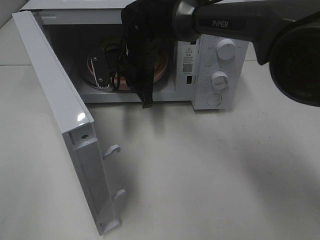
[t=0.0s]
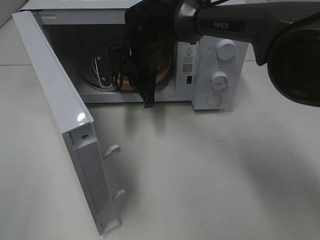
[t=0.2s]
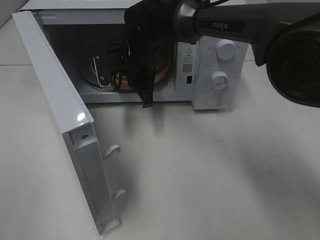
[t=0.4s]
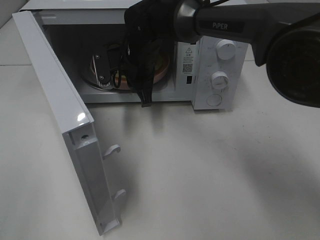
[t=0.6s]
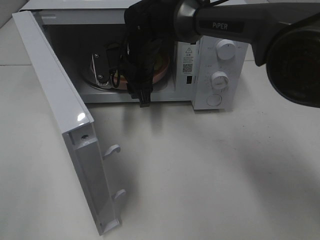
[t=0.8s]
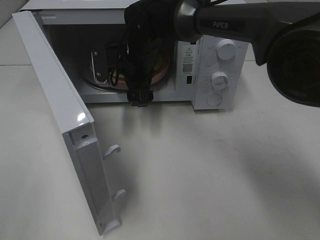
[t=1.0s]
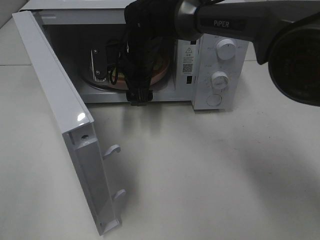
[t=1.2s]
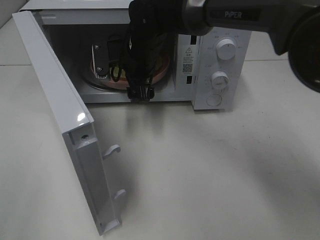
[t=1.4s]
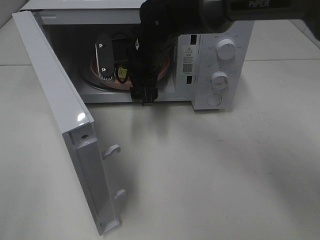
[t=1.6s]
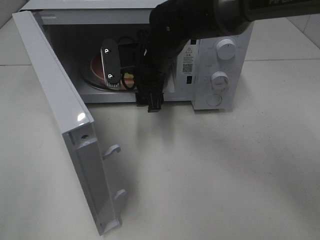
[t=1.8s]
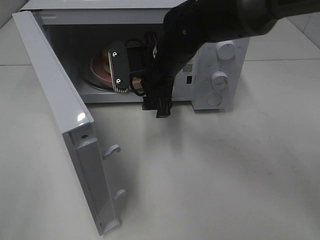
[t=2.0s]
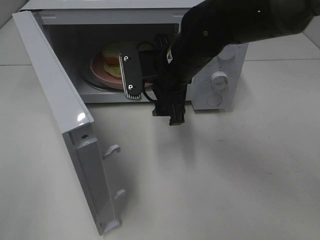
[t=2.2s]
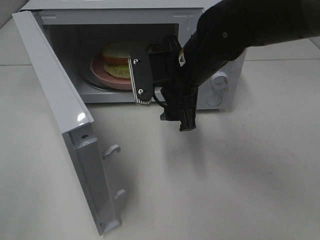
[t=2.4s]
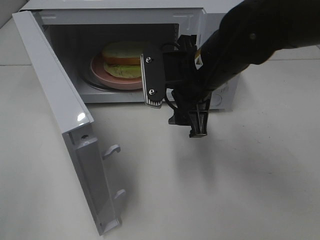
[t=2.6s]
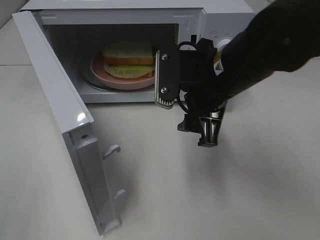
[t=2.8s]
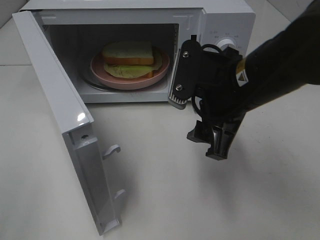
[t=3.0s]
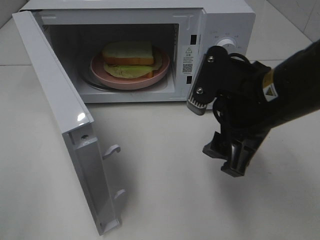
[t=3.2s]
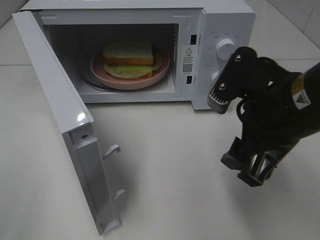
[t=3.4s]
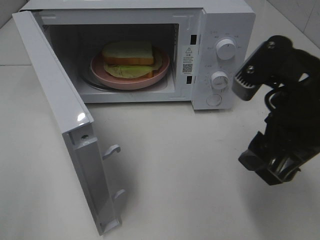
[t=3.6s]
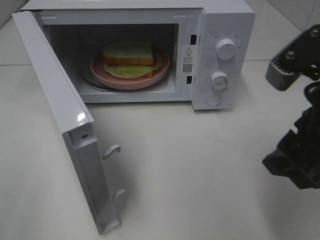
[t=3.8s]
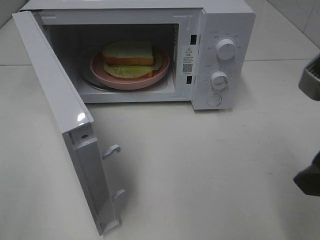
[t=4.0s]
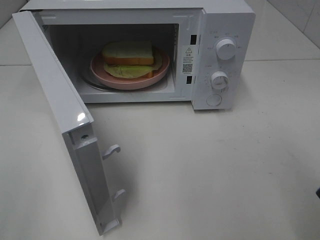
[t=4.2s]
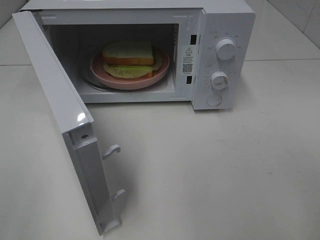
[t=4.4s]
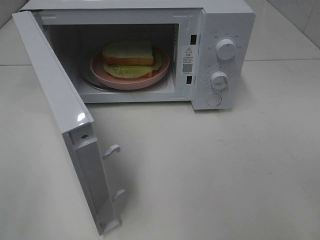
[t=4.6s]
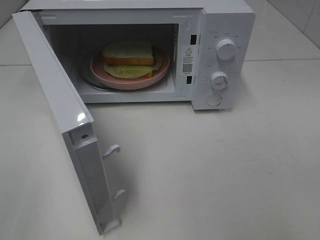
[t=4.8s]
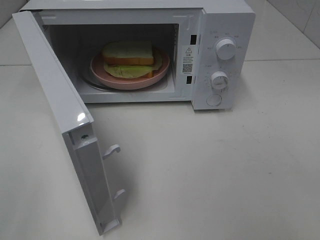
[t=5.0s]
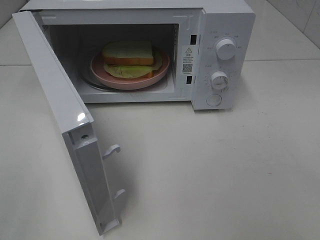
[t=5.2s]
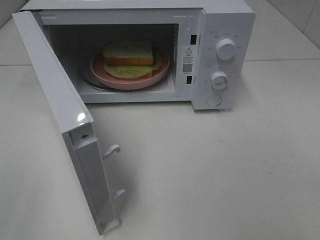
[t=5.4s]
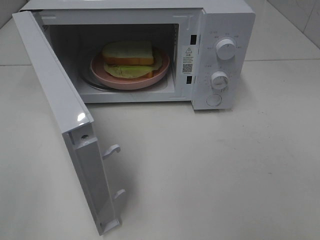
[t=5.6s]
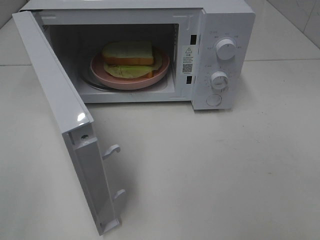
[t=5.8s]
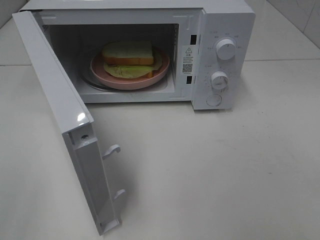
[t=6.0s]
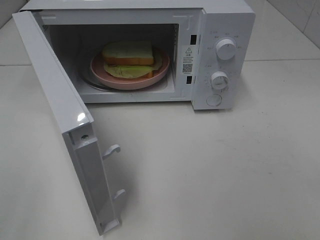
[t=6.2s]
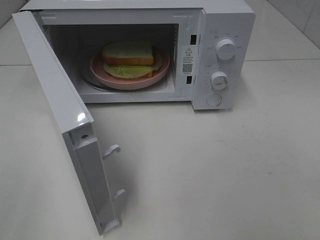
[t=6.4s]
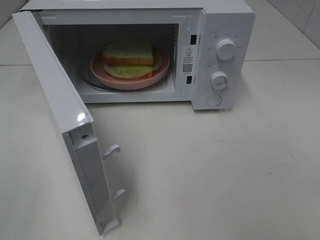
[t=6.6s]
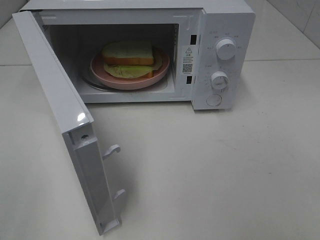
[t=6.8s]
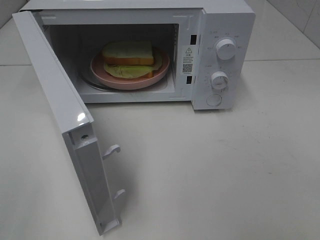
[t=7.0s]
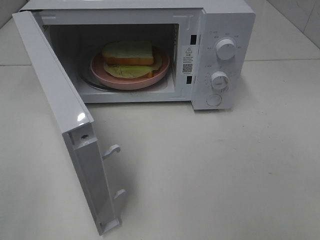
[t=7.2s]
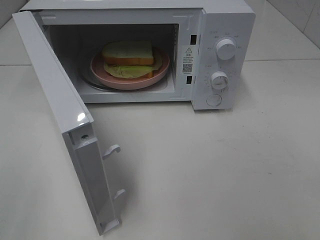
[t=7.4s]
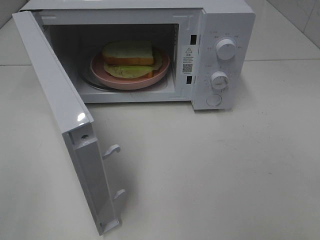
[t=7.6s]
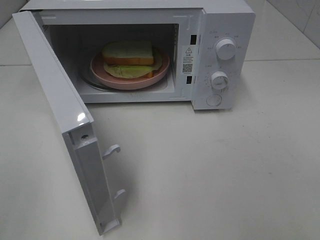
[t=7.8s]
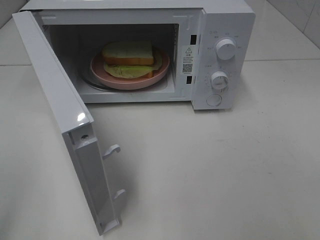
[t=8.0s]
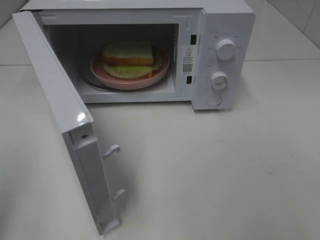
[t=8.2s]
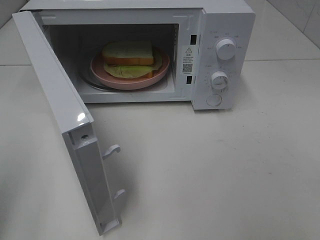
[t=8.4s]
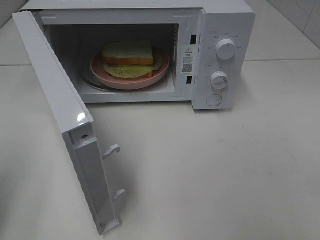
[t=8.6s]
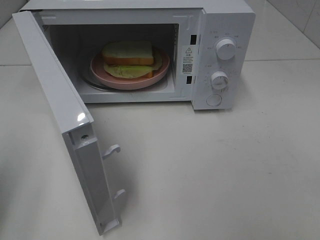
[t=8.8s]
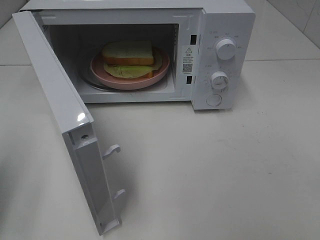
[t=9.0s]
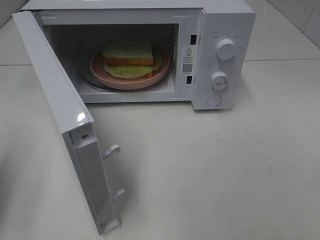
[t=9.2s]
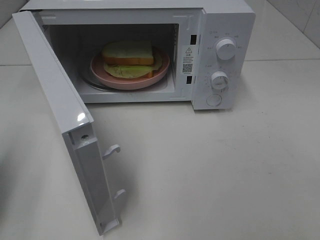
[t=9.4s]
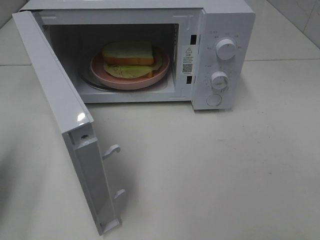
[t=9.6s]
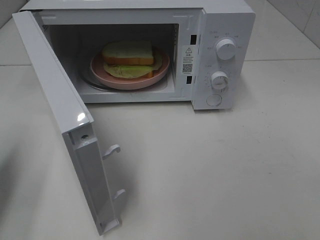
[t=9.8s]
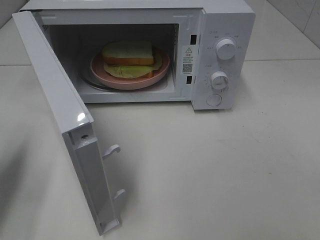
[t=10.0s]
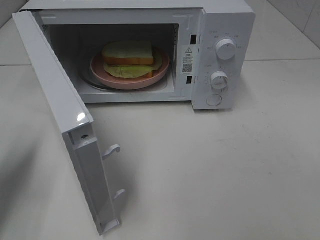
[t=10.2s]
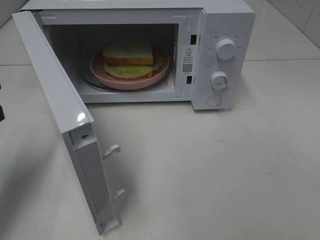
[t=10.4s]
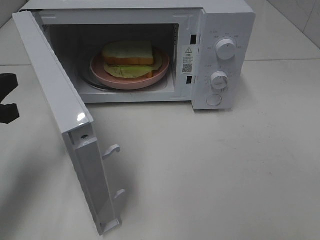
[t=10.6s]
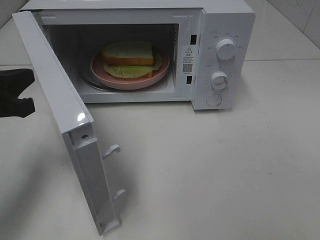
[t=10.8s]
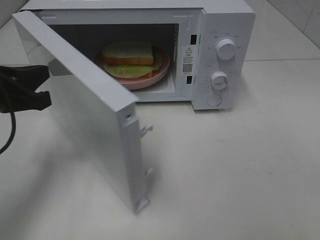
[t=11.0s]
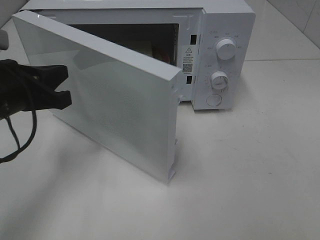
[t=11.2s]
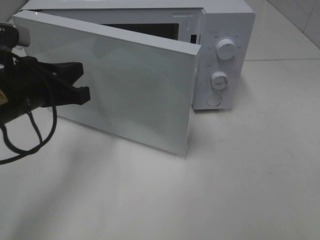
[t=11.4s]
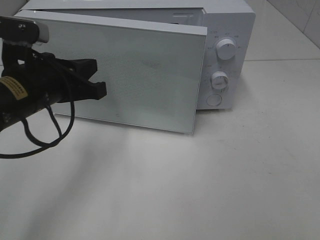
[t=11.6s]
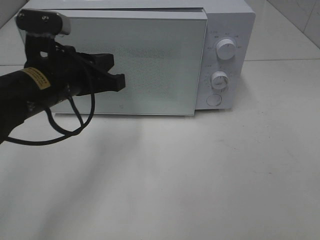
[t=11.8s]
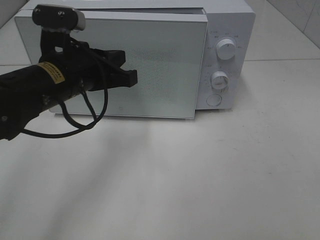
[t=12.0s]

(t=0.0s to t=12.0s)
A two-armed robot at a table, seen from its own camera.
Task of the whole recording: Heat Sandwich.
Step, t=0.0s - t=2.2s: Right hand: place the plate in the microwave.
t=0.0s - t=1.6s: The right gripper opens.
t=1.6s - t=3.0s: The right gripper shifts some 20 cm backward and to the right.
t=3.0s - t=4.4s: The right gripper heads backward, to the right and upward, covering some 20 cm.
t=6.0s - t=7.6s: Neither gripper changes place.
t=7.6s - t=9.0s: The left gripper shifts some 15 cm forward, and closes.
t=9.0s - t=10.4s: The left gripper travels forward by about 10 cm.
t=10.4s - t=12.0s: The left gripper moves to the right and forward, roughly 20 cm.

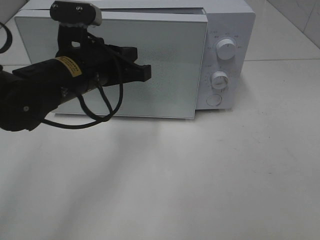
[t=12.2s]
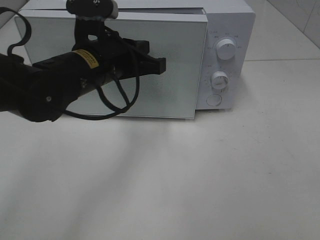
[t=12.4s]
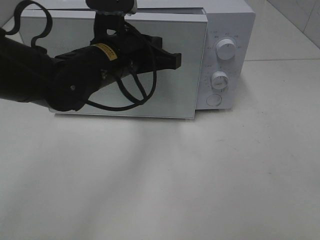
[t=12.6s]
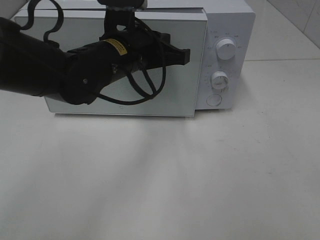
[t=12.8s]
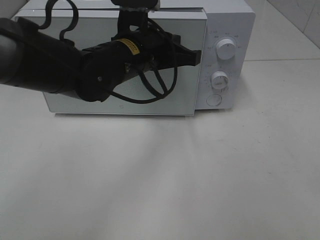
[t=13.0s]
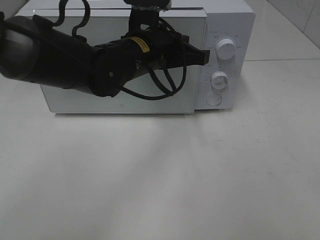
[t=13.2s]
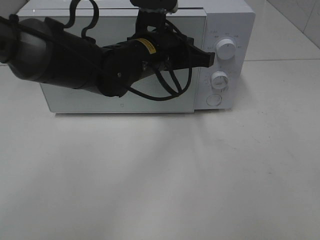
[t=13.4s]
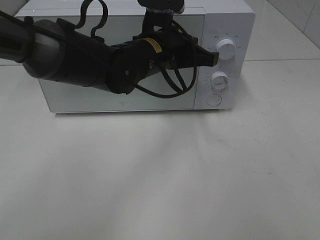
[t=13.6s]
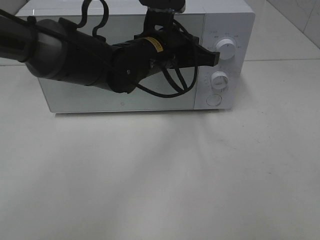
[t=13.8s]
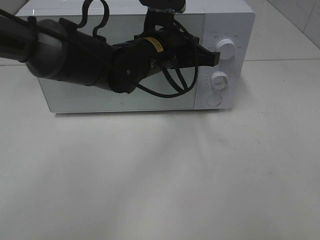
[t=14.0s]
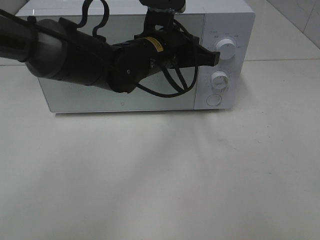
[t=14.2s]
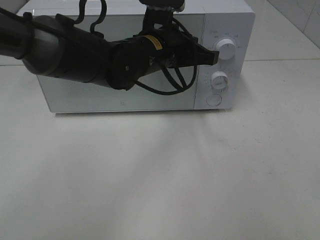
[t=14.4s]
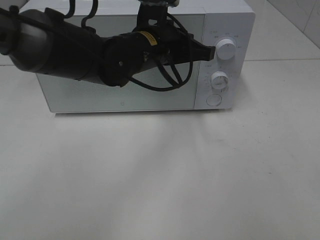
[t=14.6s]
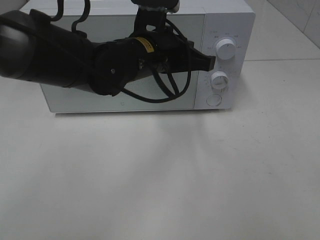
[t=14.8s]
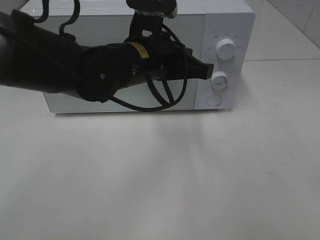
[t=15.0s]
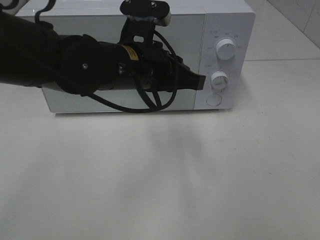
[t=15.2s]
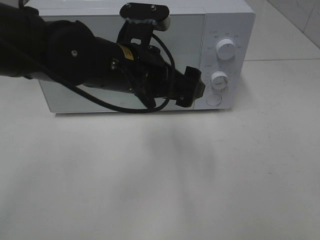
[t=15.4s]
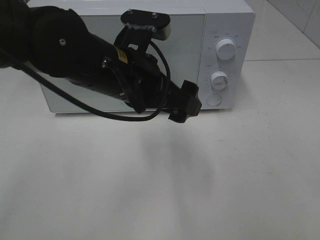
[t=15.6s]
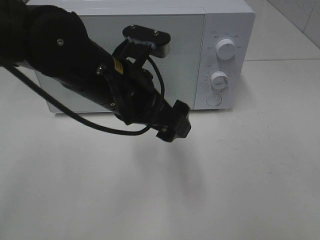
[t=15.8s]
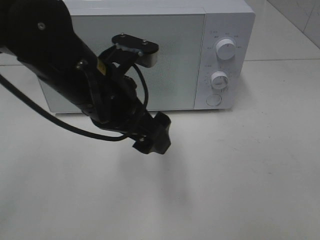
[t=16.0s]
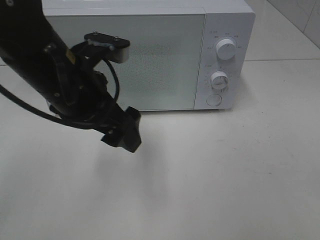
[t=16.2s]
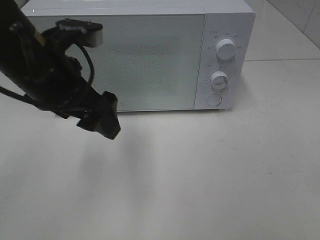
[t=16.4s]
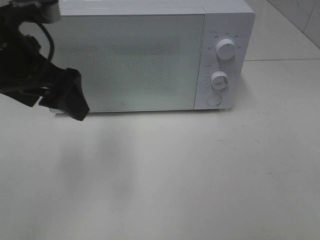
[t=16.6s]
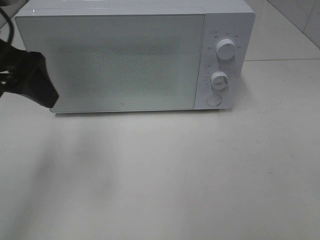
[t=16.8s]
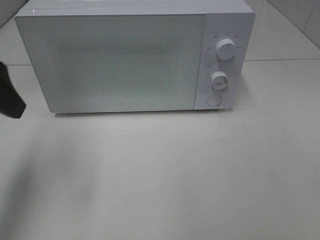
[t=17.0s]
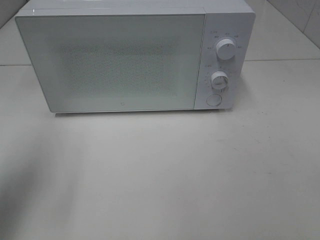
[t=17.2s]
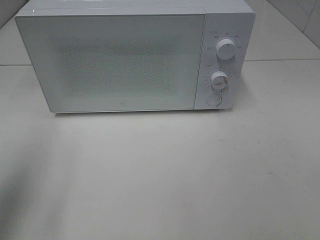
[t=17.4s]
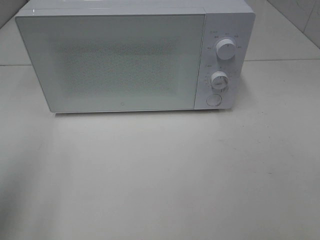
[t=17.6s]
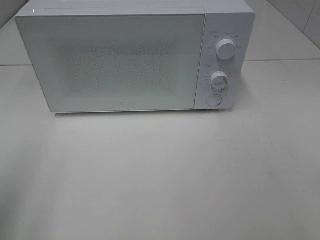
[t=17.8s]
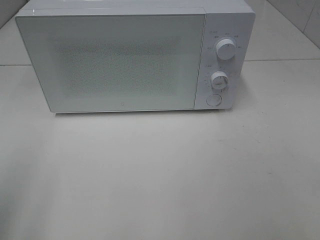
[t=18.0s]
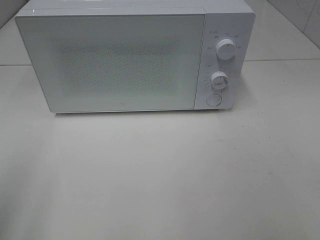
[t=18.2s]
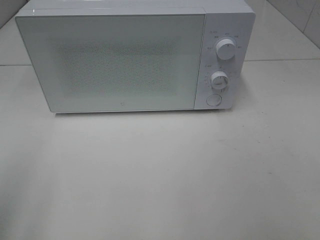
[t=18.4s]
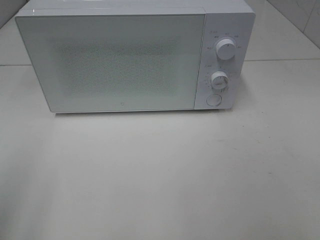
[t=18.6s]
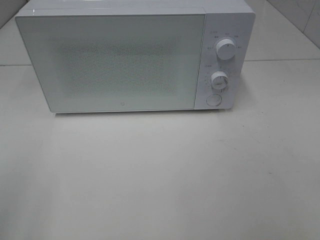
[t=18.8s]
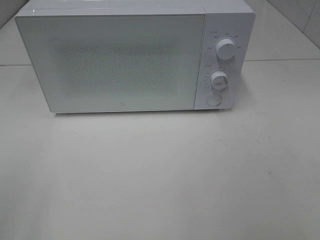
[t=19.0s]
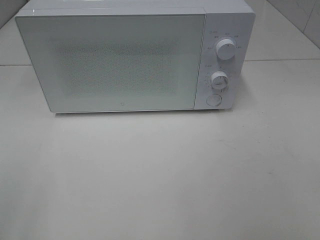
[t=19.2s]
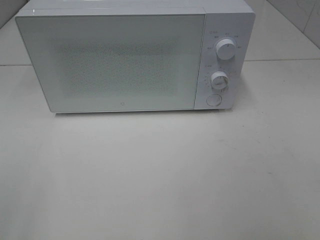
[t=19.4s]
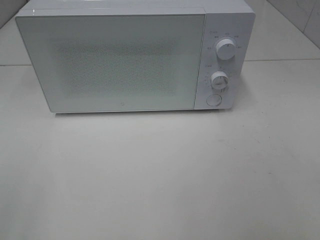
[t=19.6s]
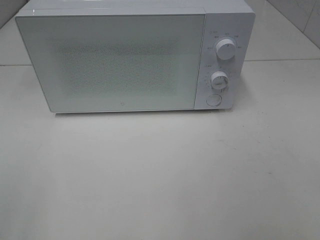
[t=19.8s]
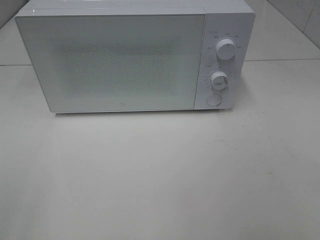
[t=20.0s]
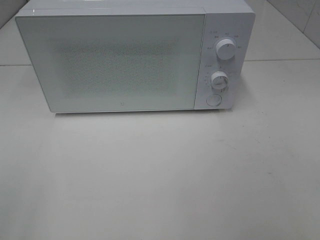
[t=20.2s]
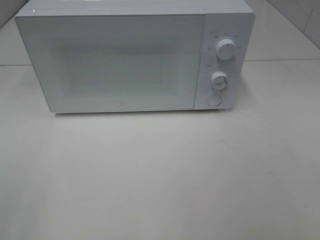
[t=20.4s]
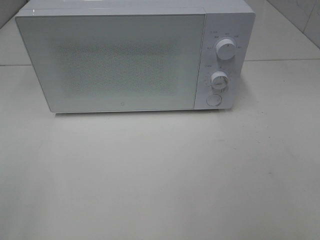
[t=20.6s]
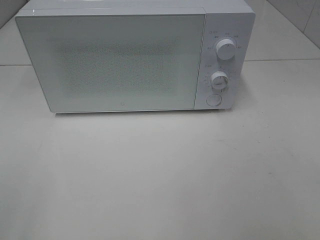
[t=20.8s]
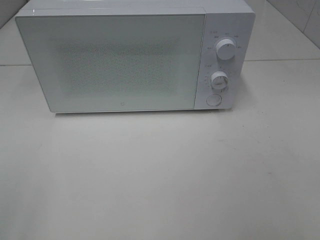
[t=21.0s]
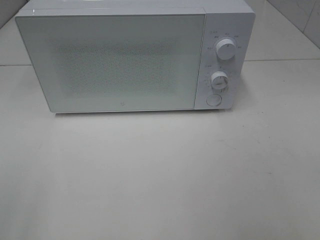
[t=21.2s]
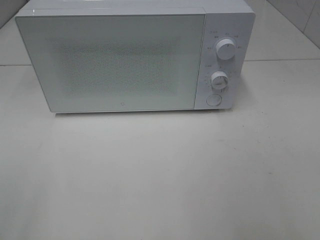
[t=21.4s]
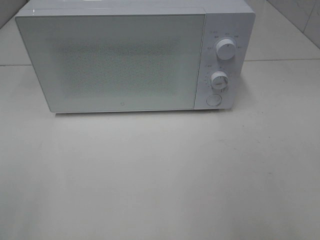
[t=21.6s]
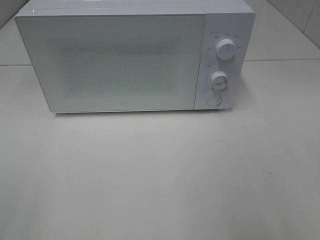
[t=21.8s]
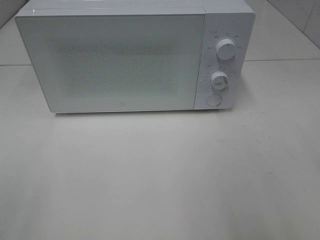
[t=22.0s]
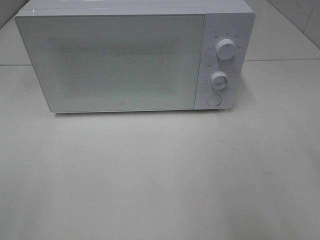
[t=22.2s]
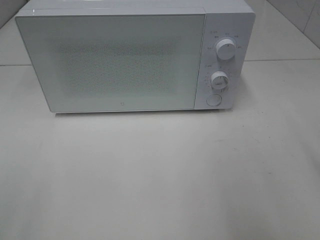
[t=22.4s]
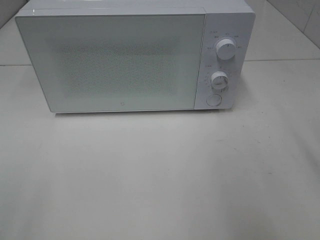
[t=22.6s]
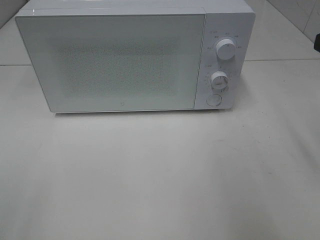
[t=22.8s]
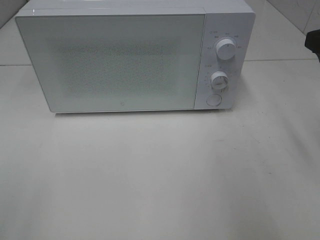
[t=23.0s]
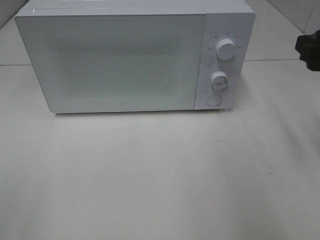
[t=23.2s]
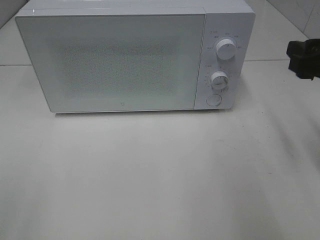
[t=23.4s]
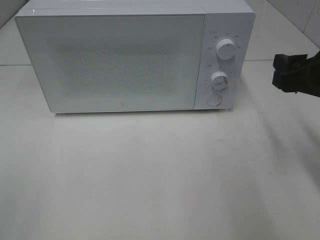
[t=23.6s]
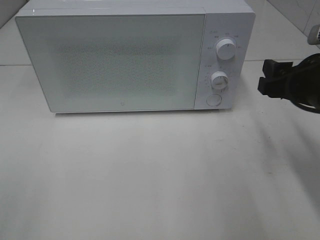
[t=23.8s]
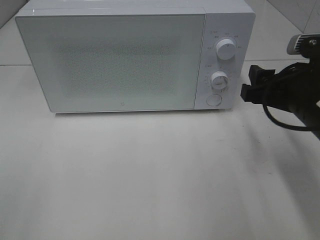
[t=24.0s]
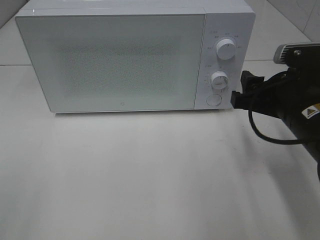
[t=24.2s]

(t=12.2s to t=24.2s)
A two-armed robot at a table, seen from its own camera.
Task of the whole recording: Heat Sandwich.
Step, t=12.2s - t=15.0s: Left hand: close the microwave door.
t=12.2s - t=13.8s: The left gripper goes some 10 cm to the right and forward.
t=13.8s - t=15.2s: The left gripper moves backward, some 5 cm.
t=15.2s - t=16.6s: The left gripper goes about 15 cm to the left and upward, and opens its fingers.
t=16.6s - t=18.2s: The left gripper is displaced backward and to the left by about 25 cm.
t=22.6s - t=24.2s: The right gripper moves downward and to the left, roughly 15 cm.
